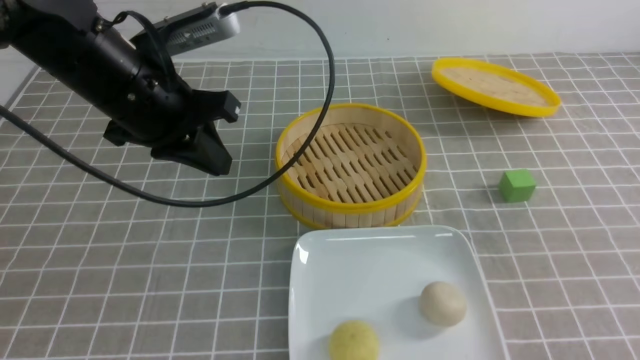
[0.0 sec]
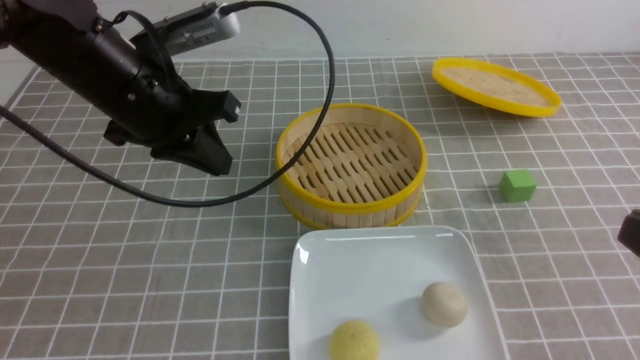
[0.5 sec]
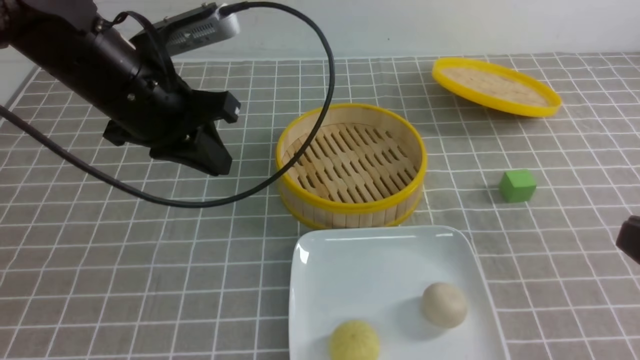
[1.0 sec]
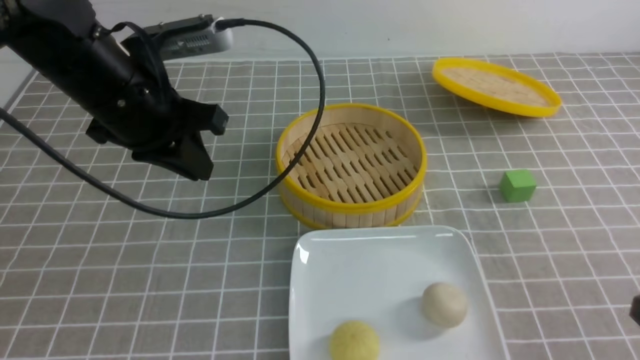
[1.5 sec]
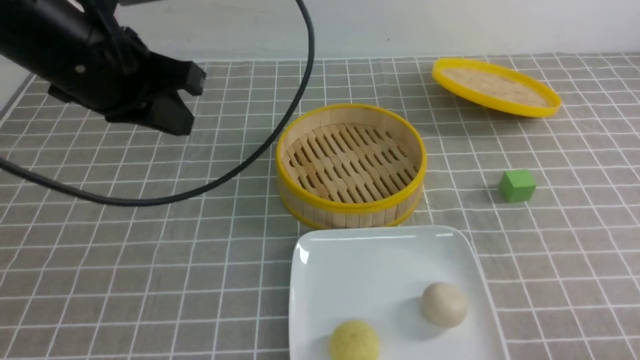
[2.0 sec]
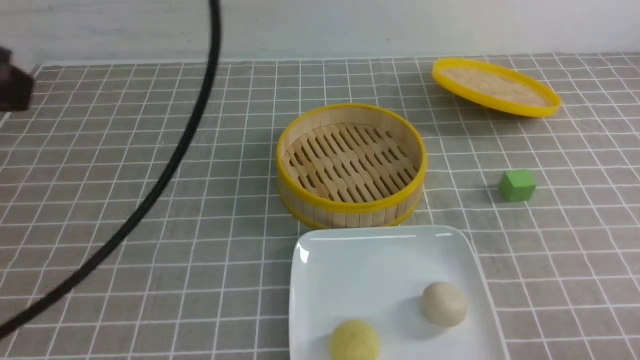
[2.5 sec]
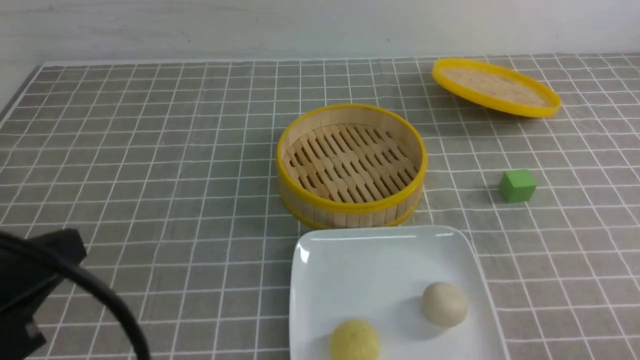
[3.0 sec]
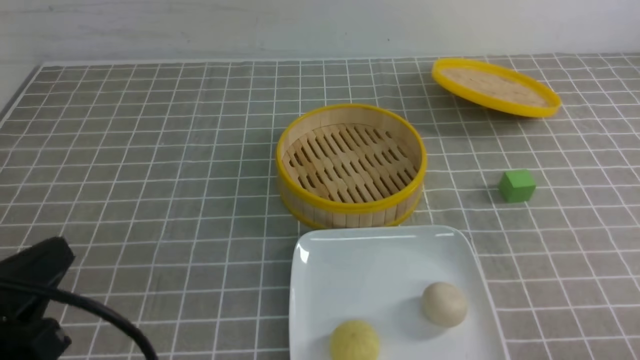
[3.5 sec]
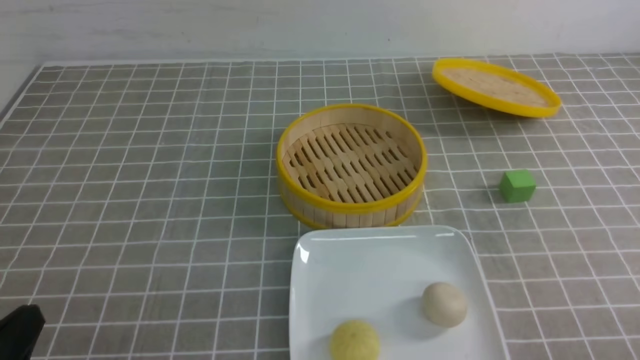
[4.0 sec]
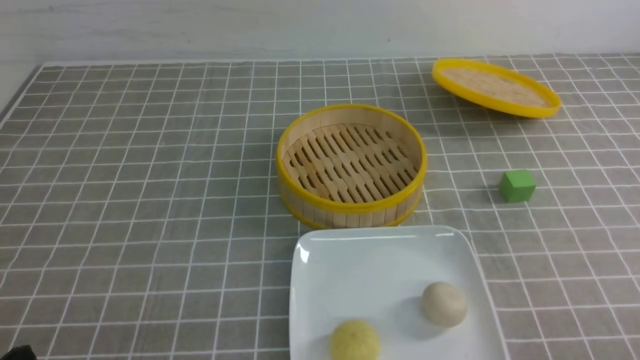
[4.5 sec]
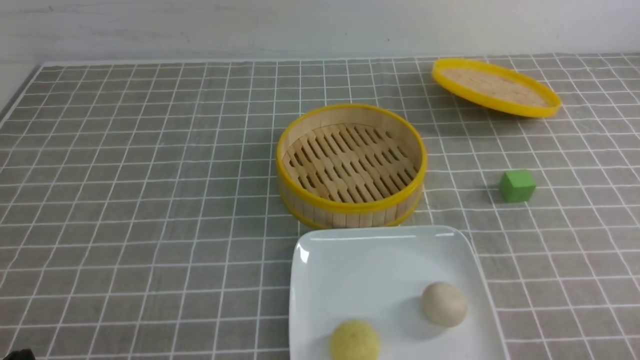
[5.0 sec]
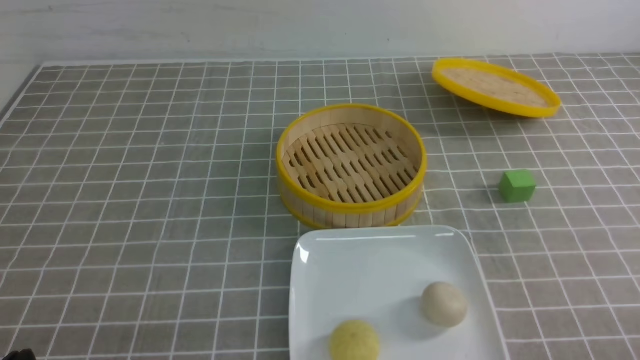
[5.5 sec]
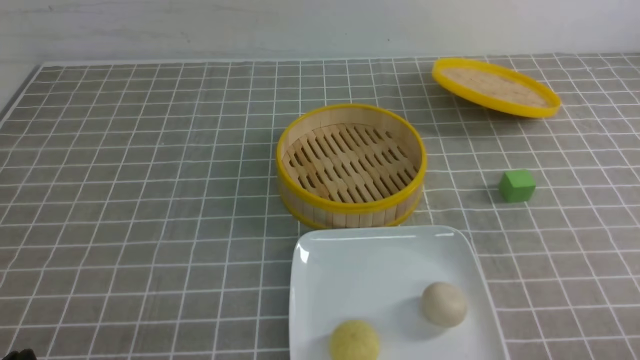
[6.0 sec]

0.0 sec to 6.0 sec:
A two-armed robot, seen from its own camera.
0.0 sec to 2.0 sec: The left gripper heads upward, covering roughly 5 cm. The right gripper is displaced downward by approximately 20 cm.
2.0 sec to 4.0 sec: The left gripper goes roughly 30 cm backward and downward.
